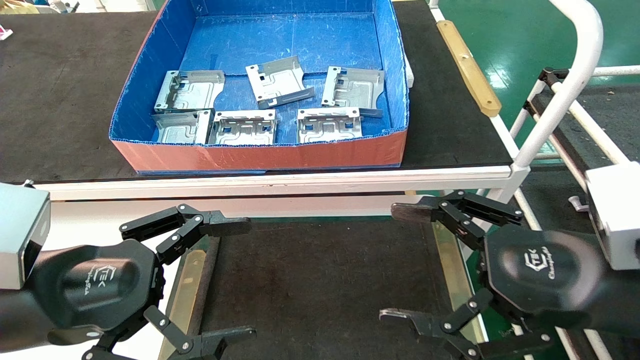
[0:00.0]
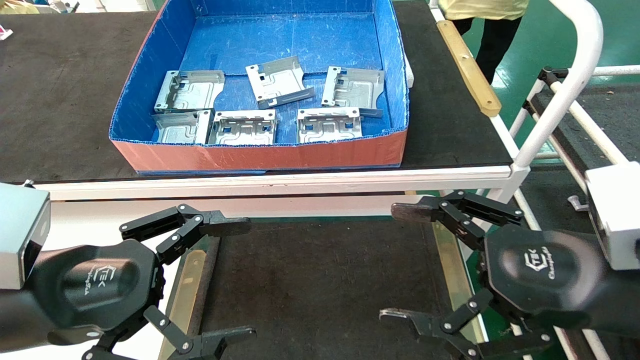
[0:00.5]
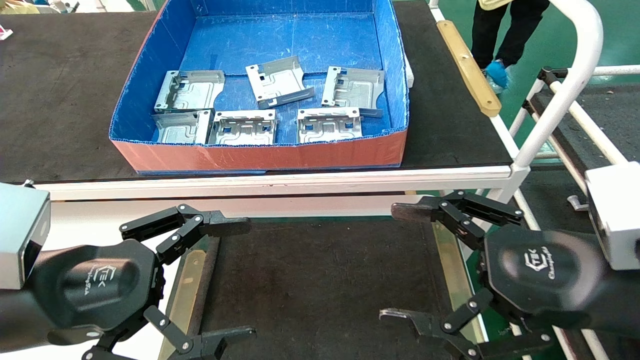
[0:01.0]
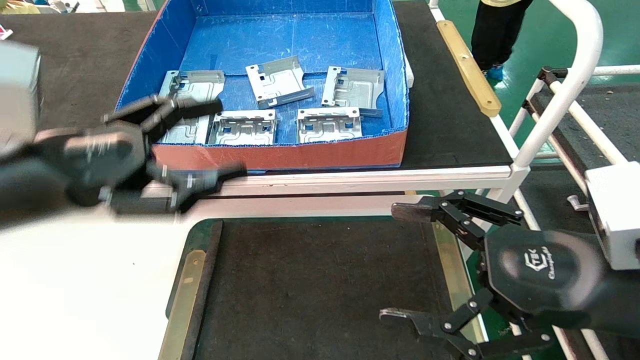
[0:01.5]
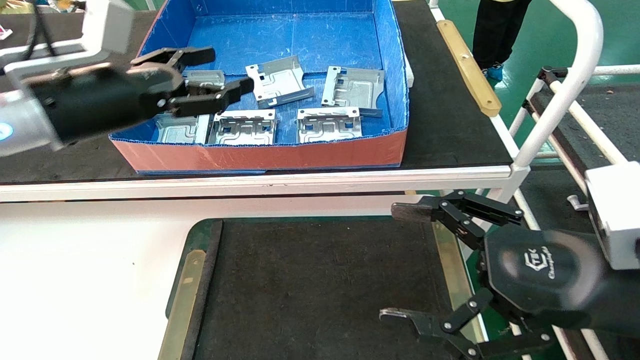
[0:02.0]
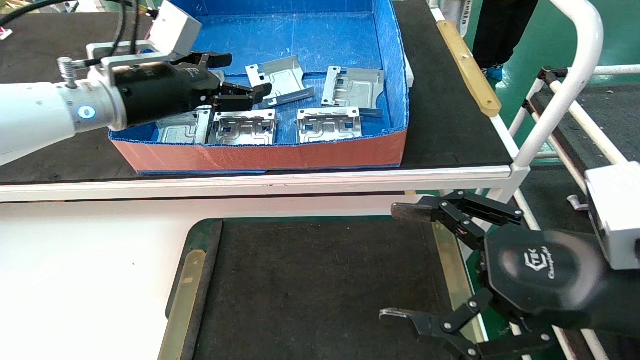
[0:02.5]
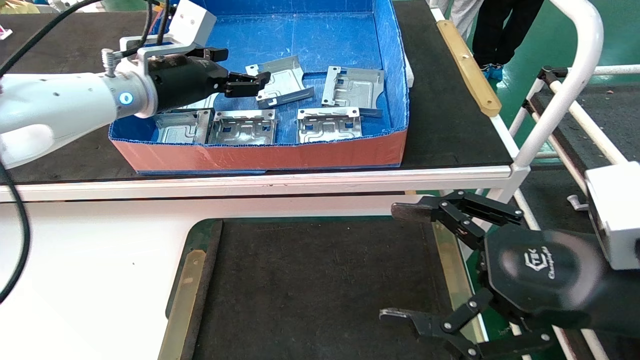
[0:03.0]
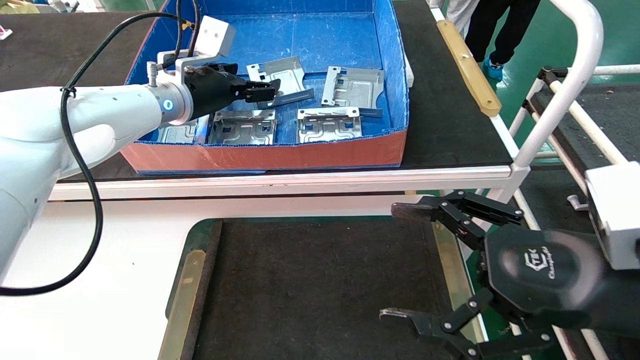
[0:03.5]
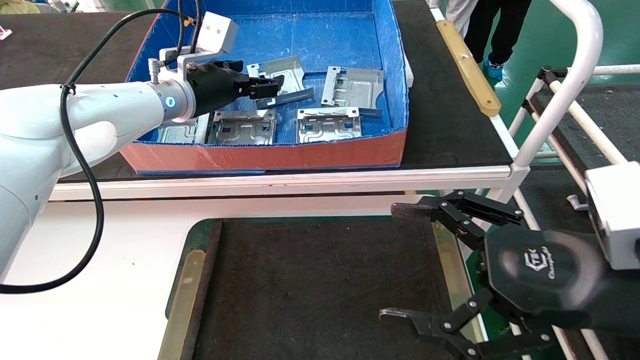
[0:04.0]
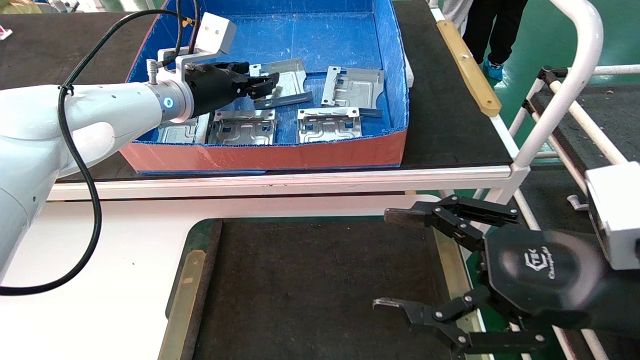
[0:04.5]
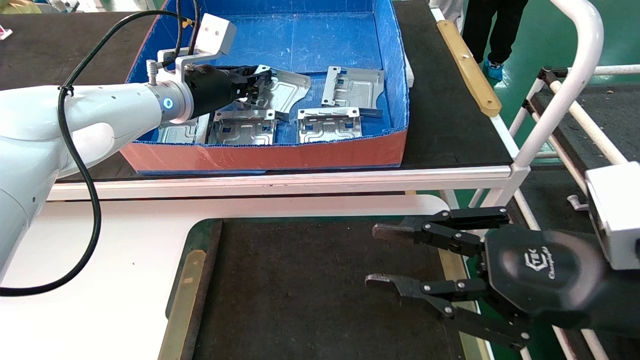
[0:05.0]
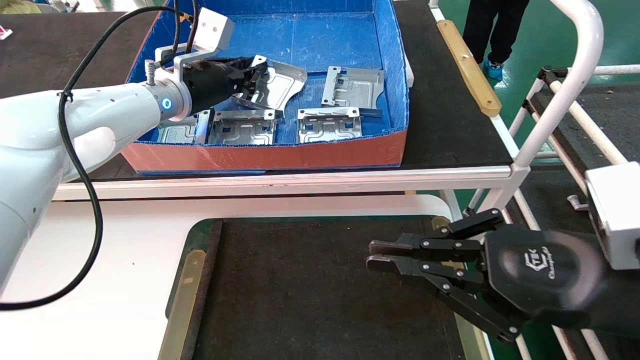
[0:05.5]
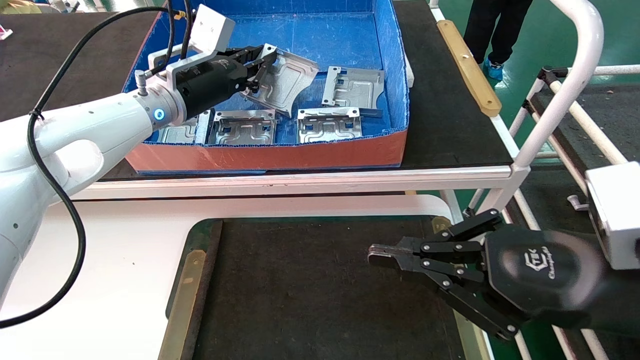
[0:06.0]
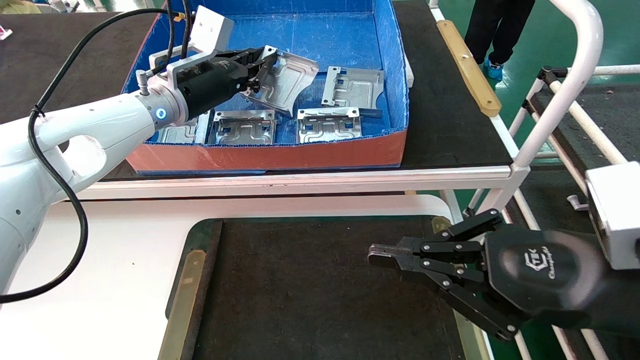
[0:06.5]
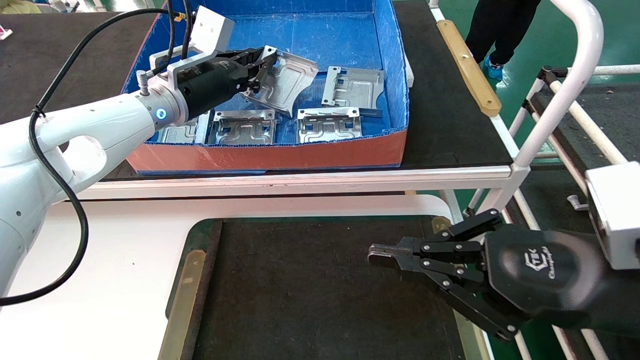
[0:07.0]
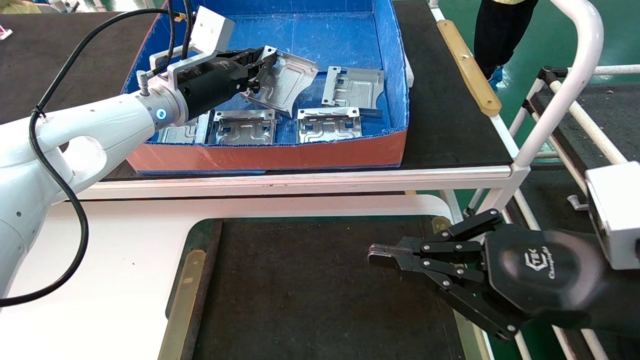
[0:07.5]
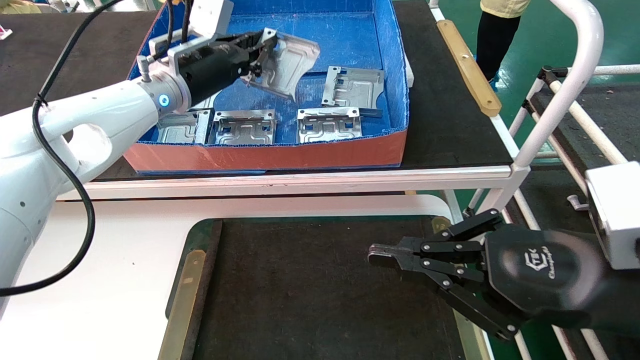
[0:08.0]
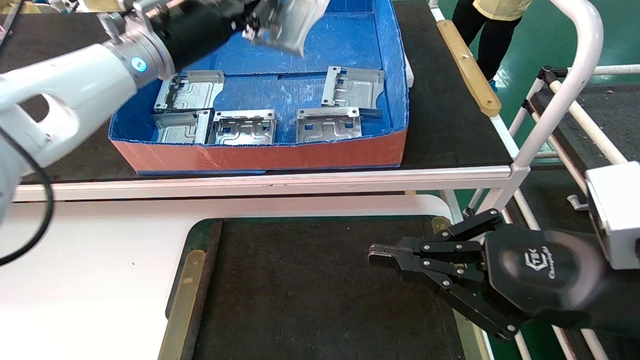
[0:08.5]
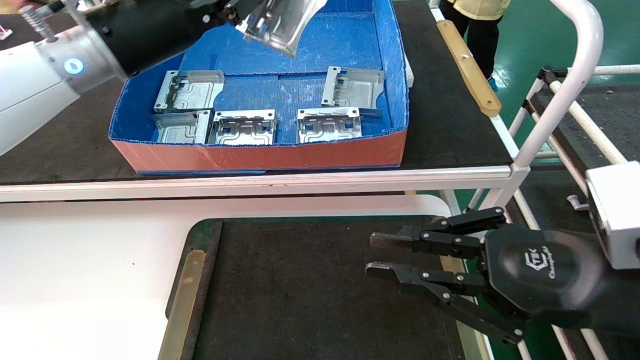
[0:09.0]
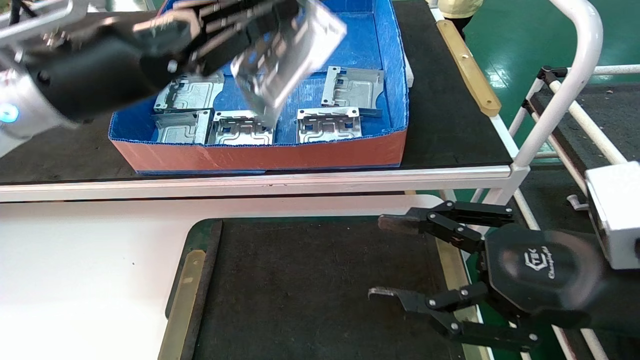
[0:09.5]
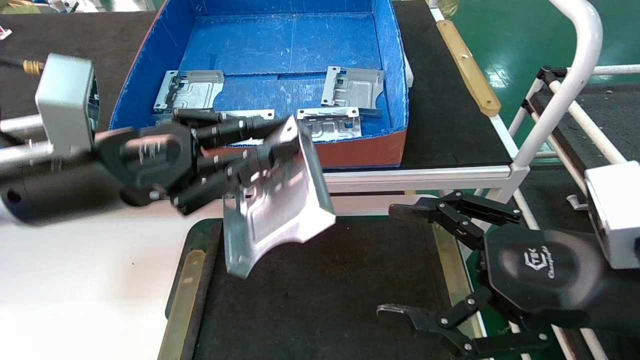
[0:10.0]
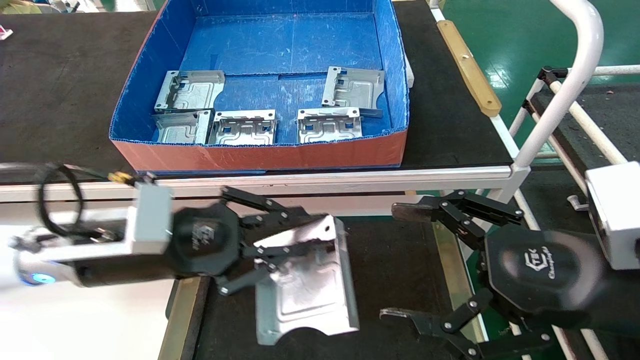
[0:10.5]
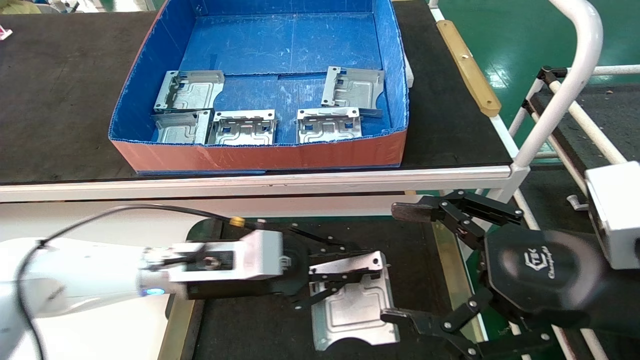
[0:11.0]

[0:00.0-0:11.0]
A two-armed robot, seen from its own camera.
Task of the whole recording: take the accessories out of the box and place them on the table.
Step, 0:02.0 to 0:05.0: Pick up the hard drive bracket from the feeding area.
0:00.0 to 0:02.0: The left gripper is displaced forward and upward by some 20 cm.
0:02.0 to 0:03.5: The left gripper travels forward and to the right by approximately 15 cm.
0:03.5 to 0:05.5: The left gripper closes. Meanwhile the right gripper closes up.
0:05.5 to 0:07.5: The grippers stay close to where they were, moving slightly.
0:07.5 to 0:09.0: The left gripper moves backward and upward, about 10 cm.
0:09.0 to 0:11.0: The right gripper opens; the left gripper is displaced downward by roughly 25 cm.

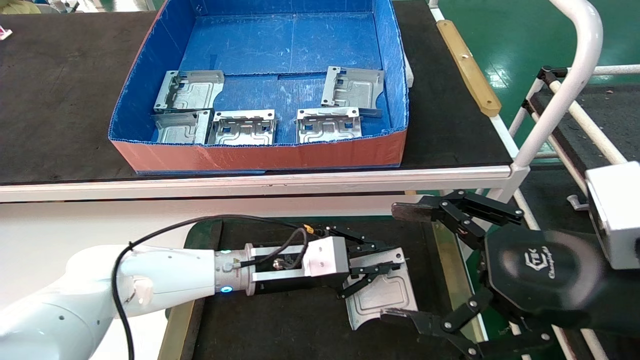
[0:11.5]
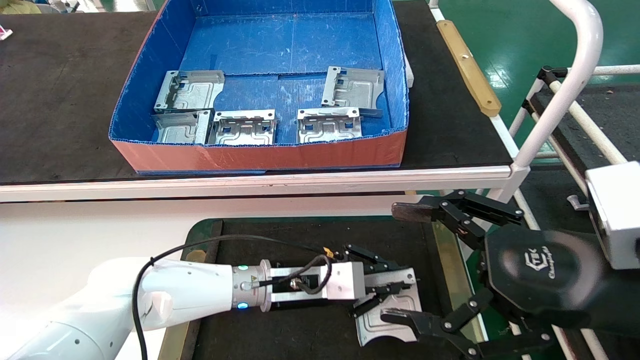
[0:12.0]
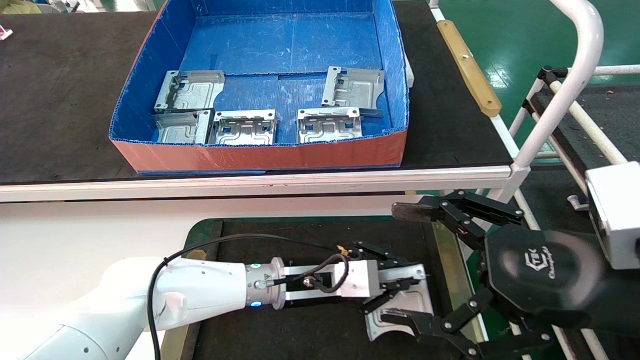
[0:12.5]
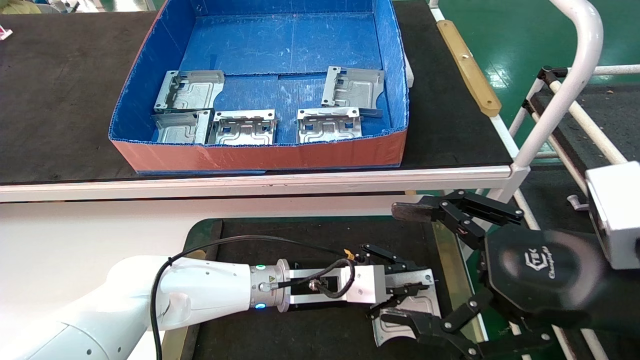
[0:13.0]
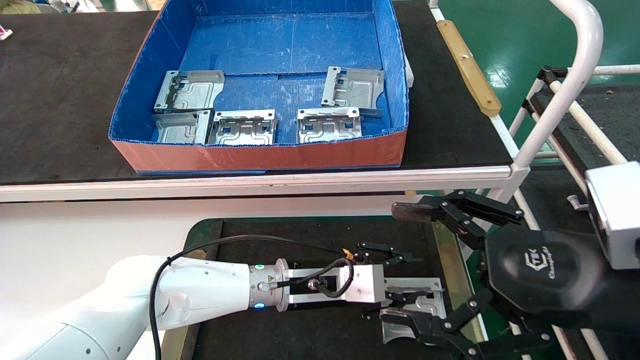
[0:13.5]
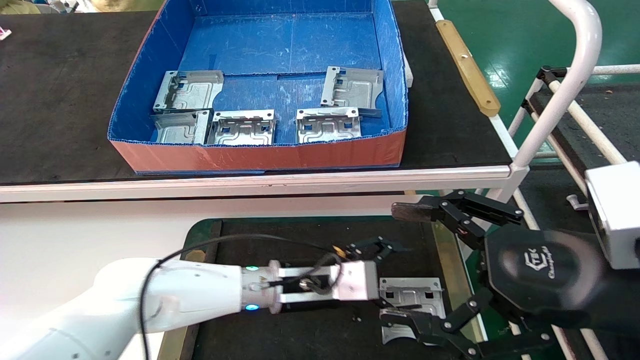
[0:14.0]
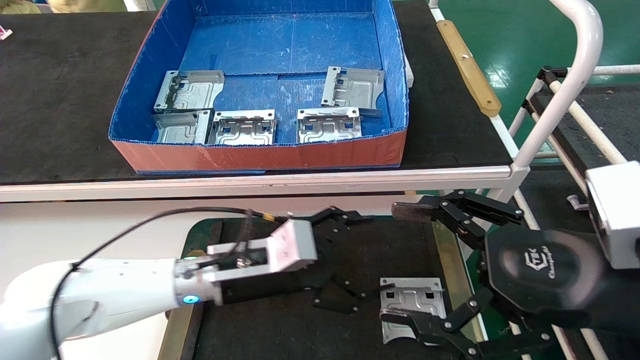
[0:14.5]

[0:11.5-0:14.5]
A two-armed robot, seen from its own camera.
Task of the whole recording: take the accessories out of the box and place them on the table.
Step, 0:11.5 to 0:13.5: Place the hard drive bracket into the box.
0:11.5 to 0:13.0: The left gripper heads to the right, covering some 5 cm.
0:13.0 to 0:14.5: The left gripper goes approximately 10 cm to the left, and opens its fingers.
